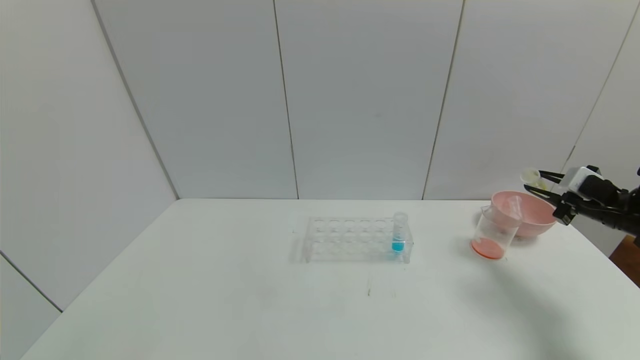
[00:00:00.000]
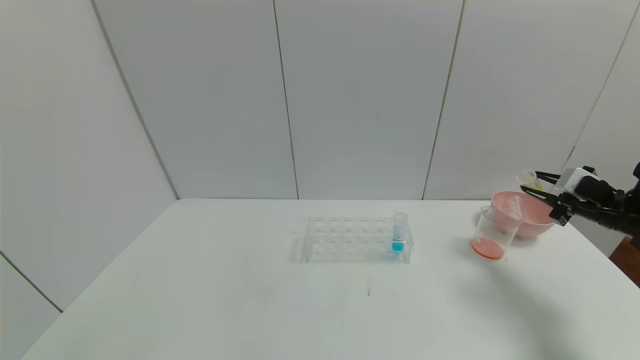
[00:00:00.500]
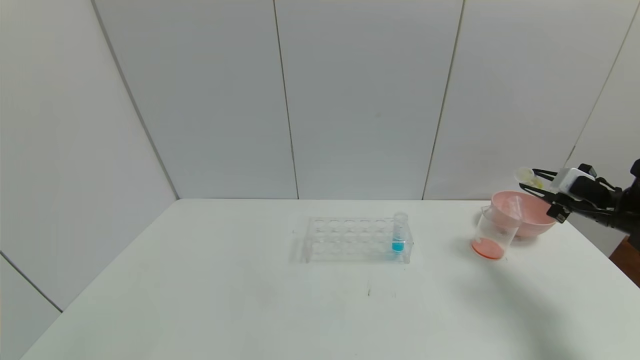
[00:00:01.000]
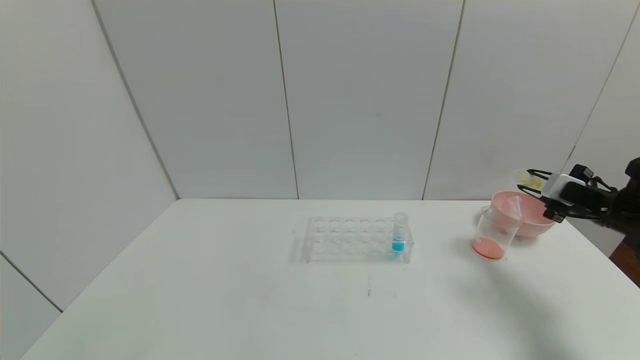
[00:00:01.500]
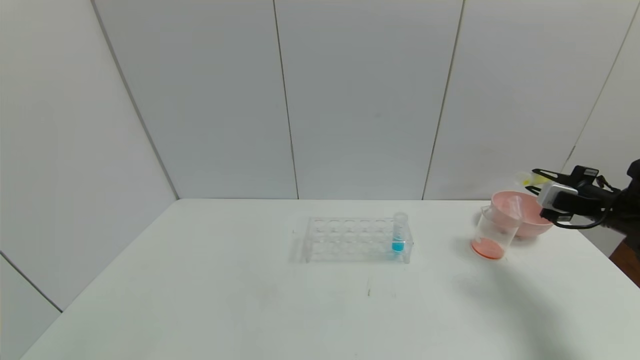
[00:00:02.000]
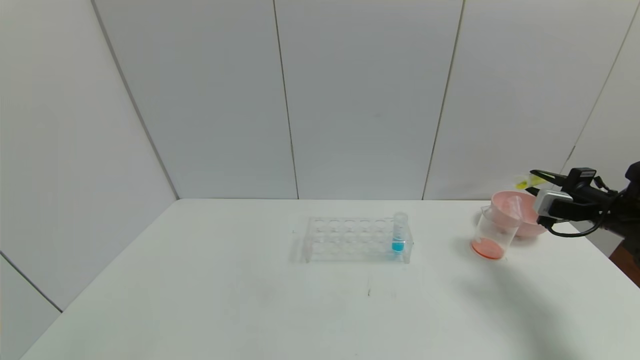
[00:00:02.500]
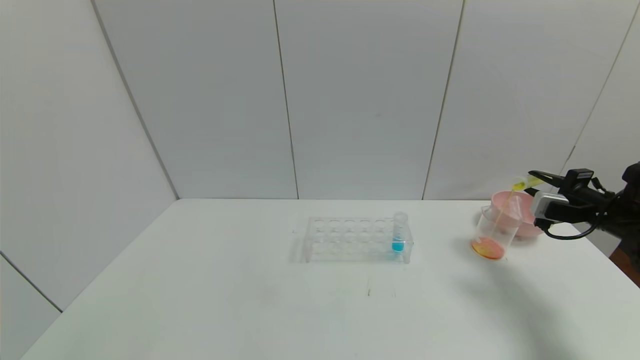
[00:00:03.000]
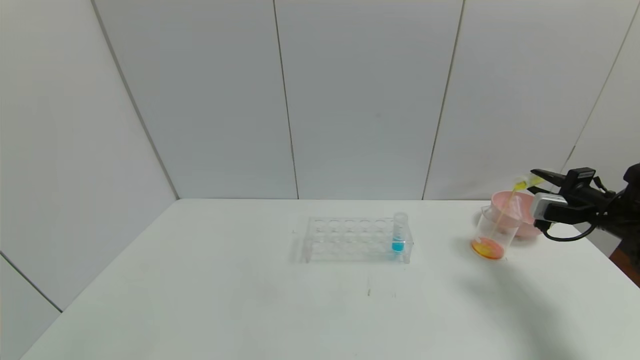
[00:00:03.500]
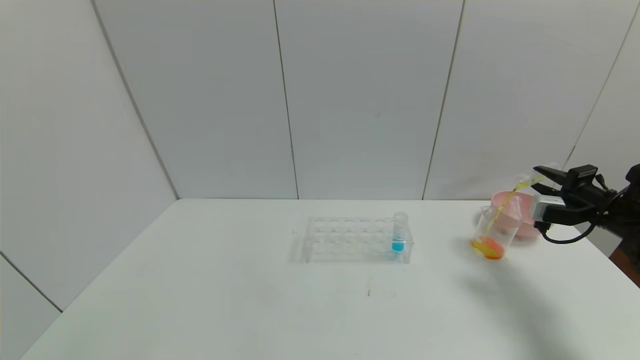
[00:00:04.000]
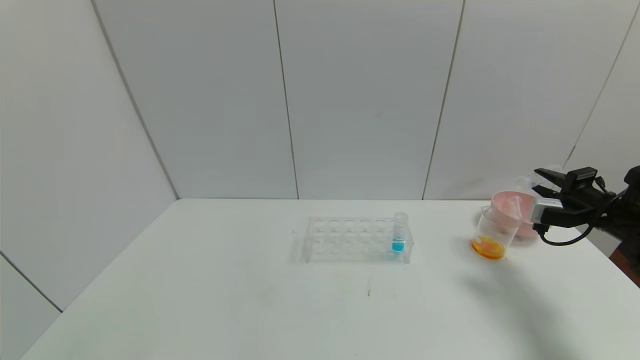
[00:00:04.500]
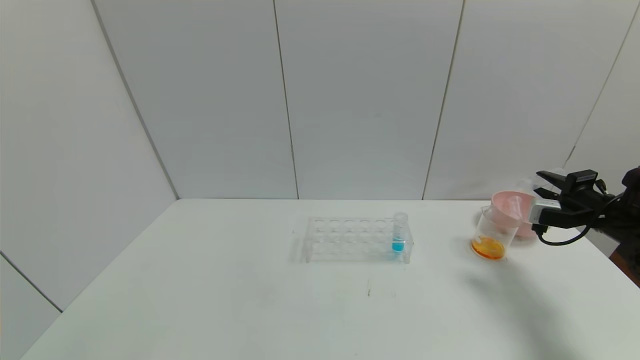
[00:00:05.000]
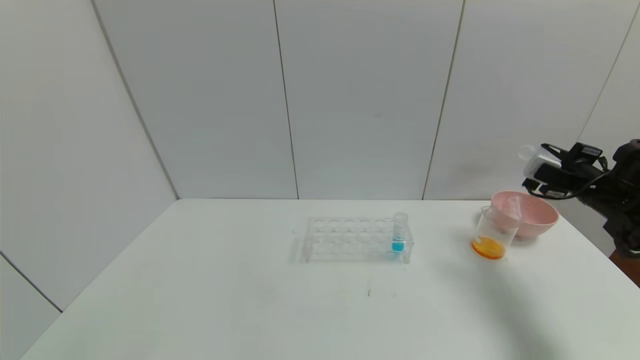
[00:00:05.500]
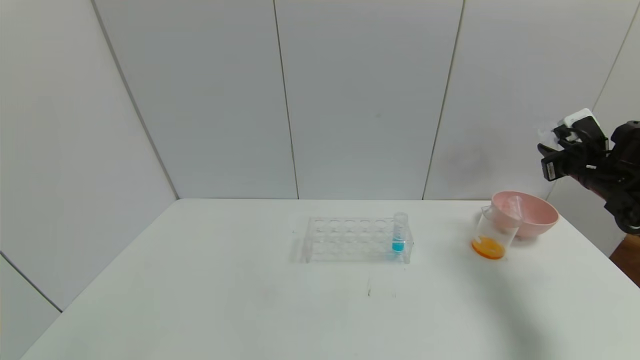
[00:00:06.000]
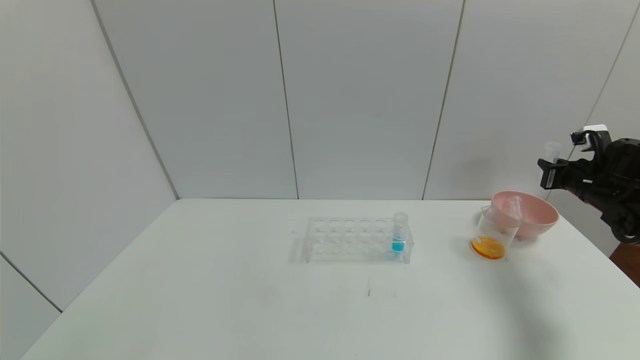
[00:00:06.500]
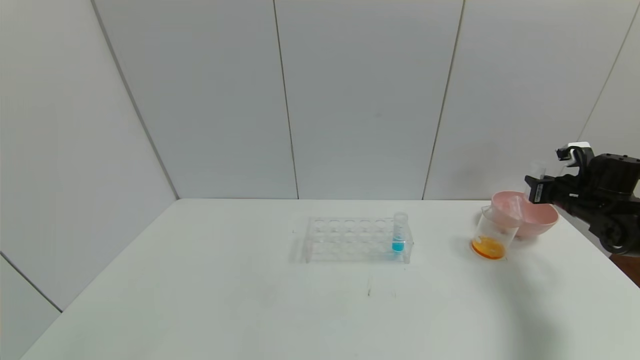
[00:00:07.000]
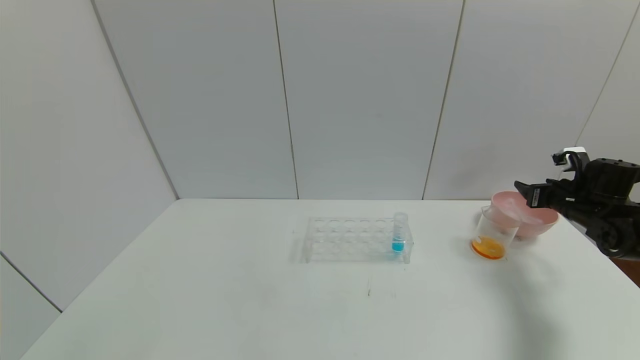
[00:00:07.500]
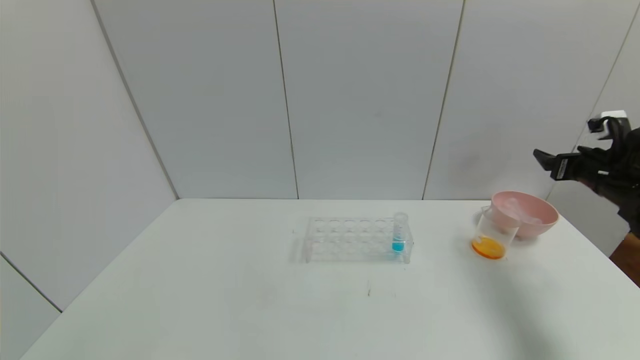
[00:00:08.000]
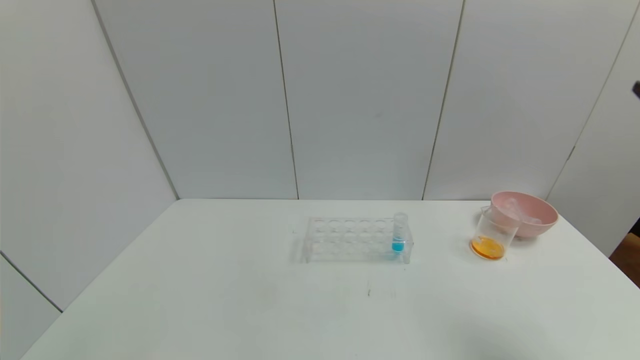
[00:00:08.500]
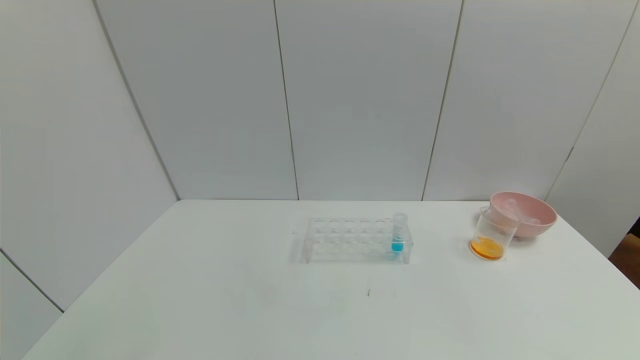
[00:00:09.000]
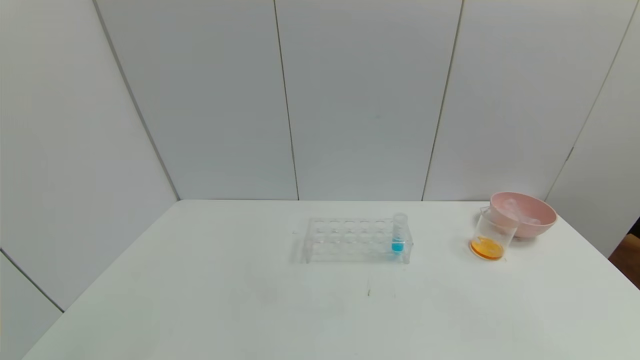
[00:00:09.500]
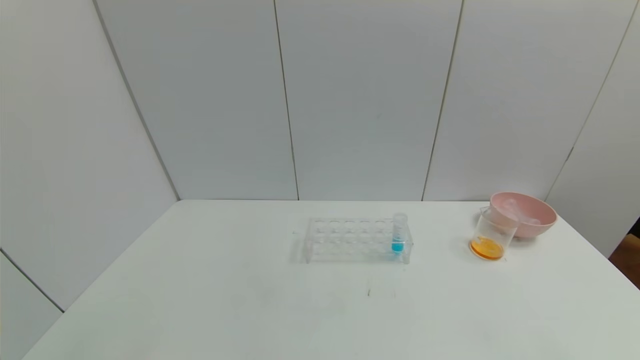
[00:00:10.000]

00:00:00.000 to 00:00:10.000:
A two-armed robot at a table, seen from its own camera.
Task of the whole recording: pick up the test tube with yellow pigment and the test tube with red pigment by grippers and pour them into the beaker.
Step, 00:00:00.000 to 00:00:04.500: Pour the yellow reagent into the graduated cylinder with the right gripper.
Step, 00:00:05.000 to 00:00:07.000: Place the test tube into the bowl with the right gripper.
00:00:02.000 to 00:00:04.000: The grippers move only a little.
00:00:04.000 to 00:00:06.000: The right gripper changes place by some 5 cm.
00:00:06.000 to 00:00:08.000: The right gripper moves about 5 cm downward and comes back, and opens.
00:00:08.000 to 00:00:10.000: The right gripper heads backward, covering some 40 cm.

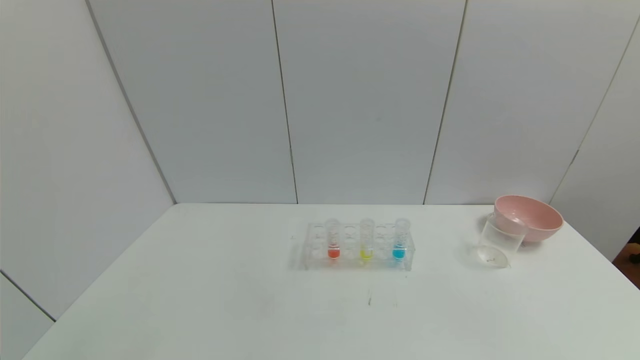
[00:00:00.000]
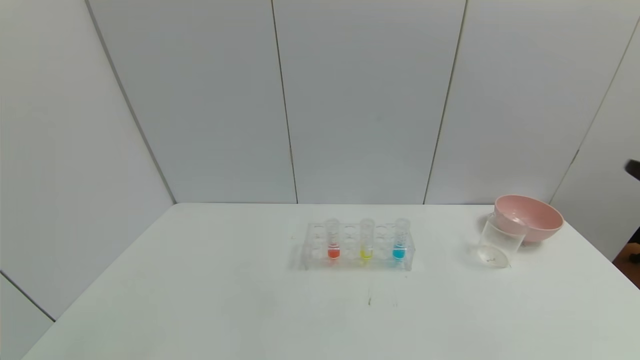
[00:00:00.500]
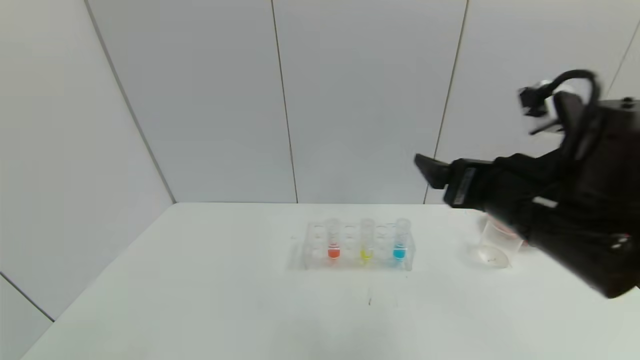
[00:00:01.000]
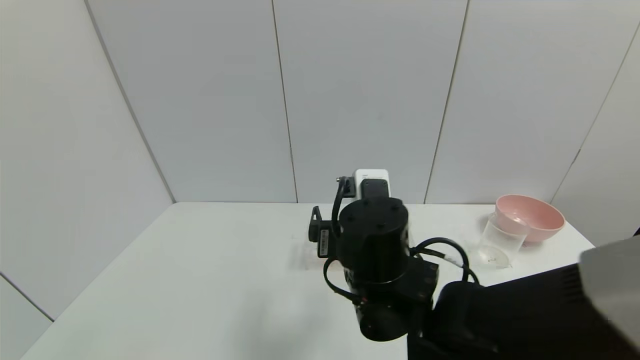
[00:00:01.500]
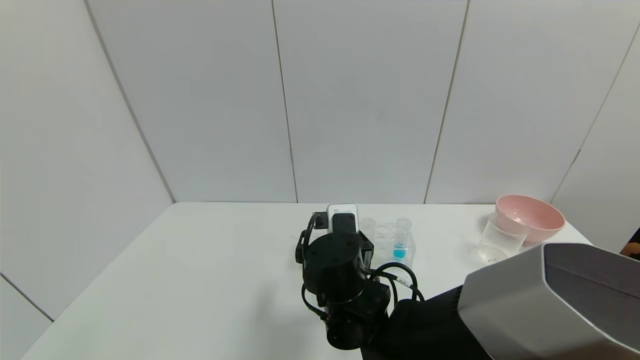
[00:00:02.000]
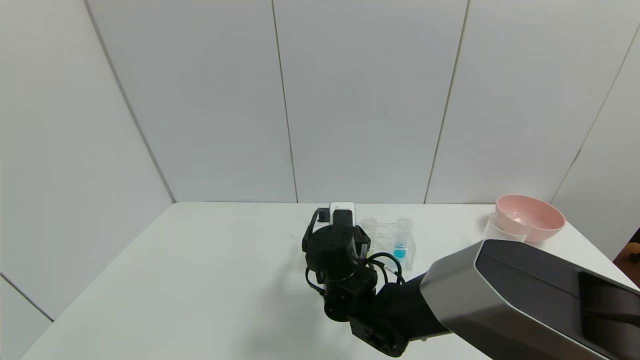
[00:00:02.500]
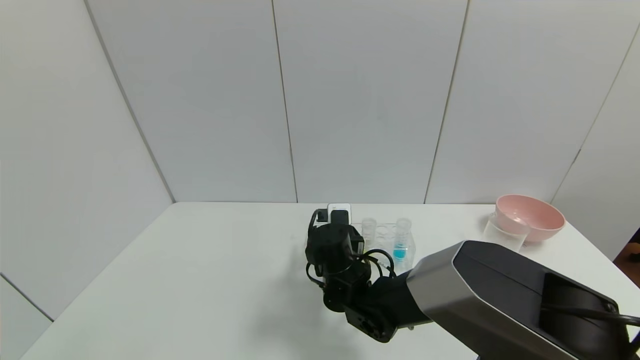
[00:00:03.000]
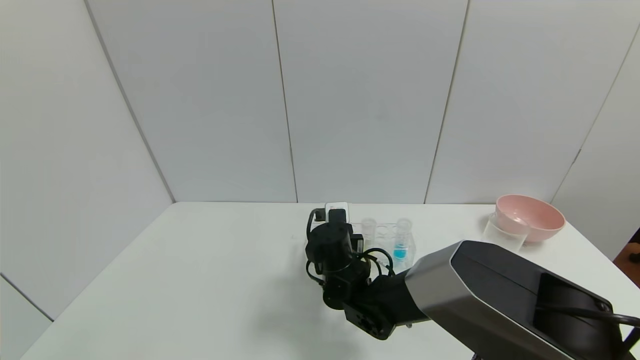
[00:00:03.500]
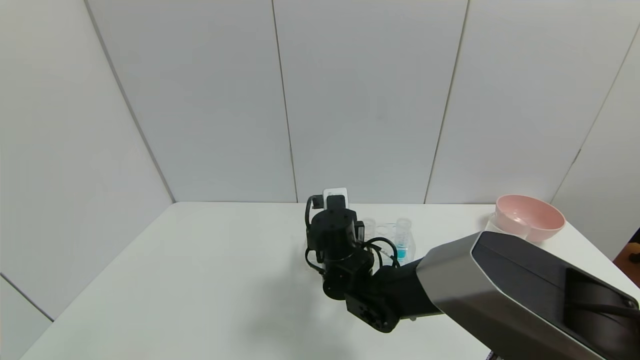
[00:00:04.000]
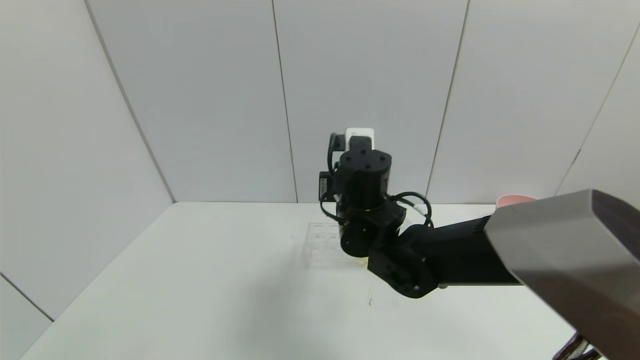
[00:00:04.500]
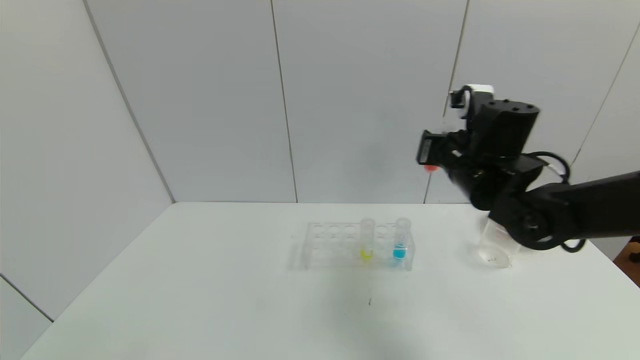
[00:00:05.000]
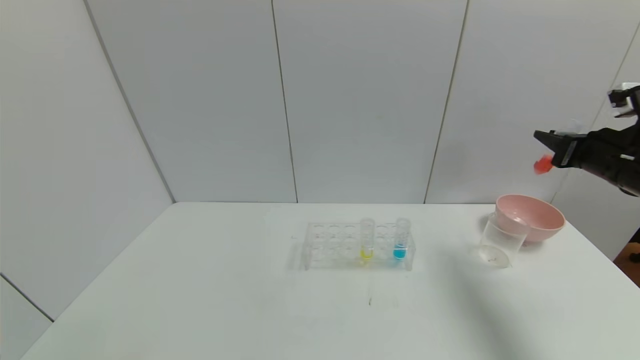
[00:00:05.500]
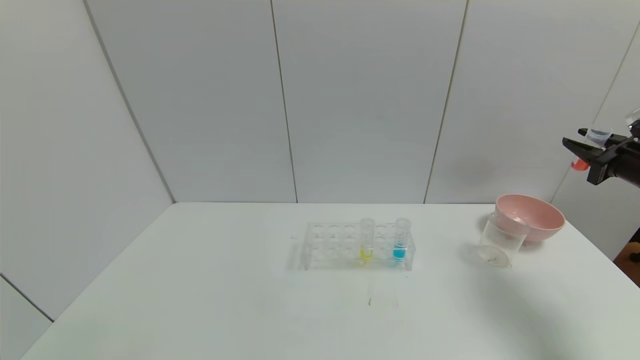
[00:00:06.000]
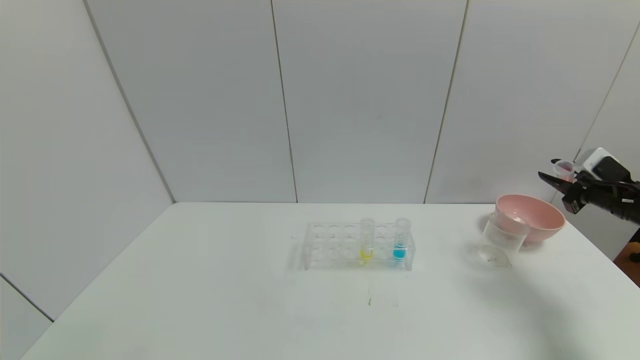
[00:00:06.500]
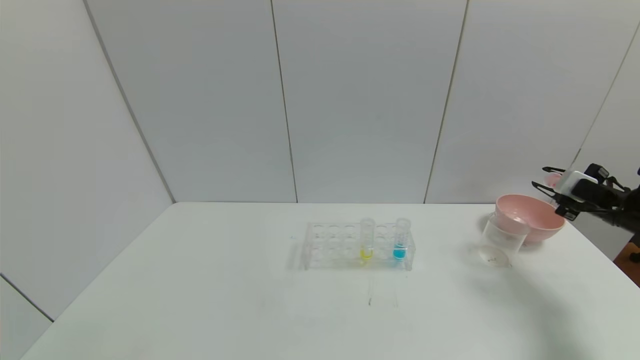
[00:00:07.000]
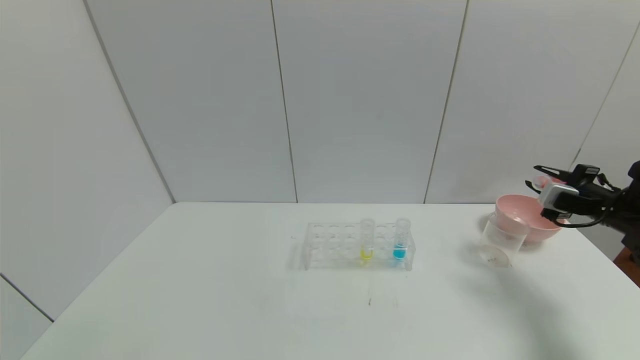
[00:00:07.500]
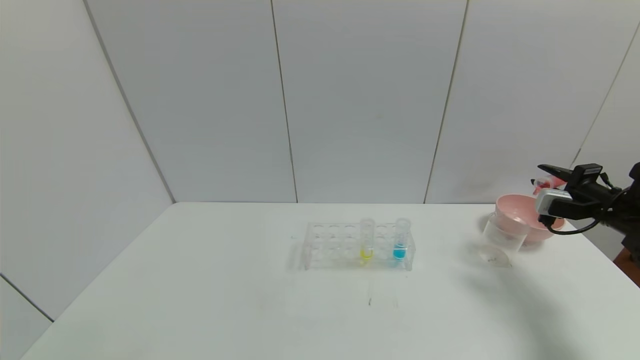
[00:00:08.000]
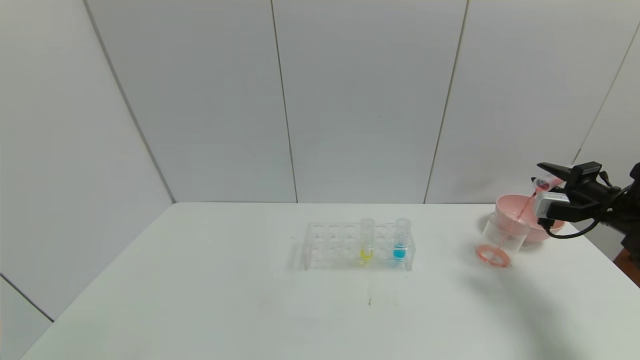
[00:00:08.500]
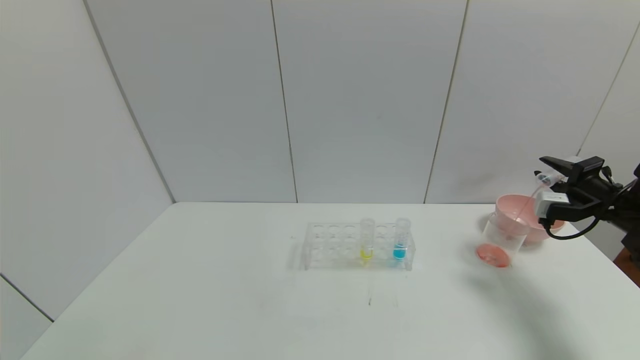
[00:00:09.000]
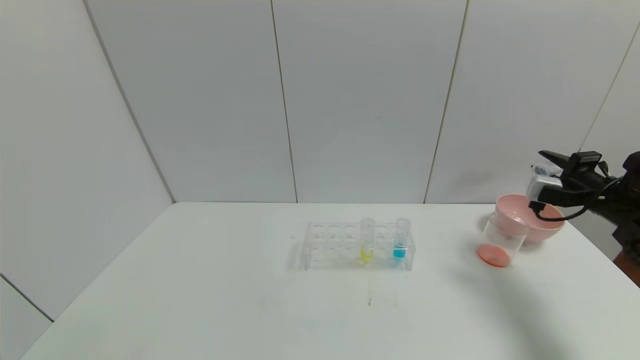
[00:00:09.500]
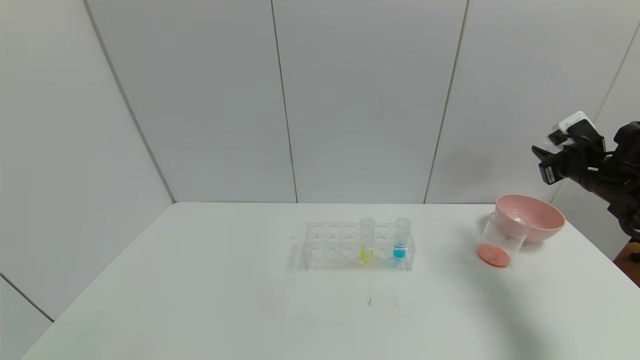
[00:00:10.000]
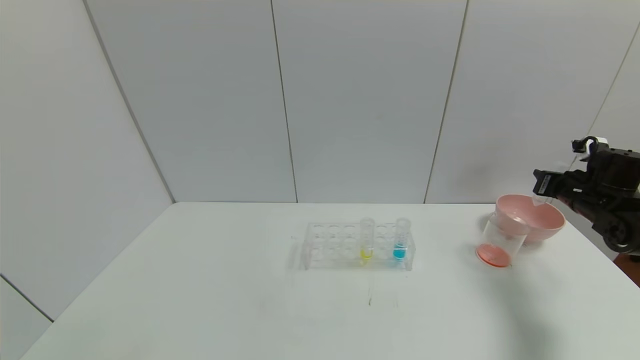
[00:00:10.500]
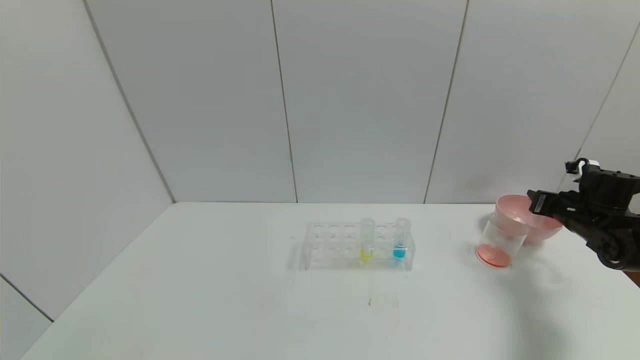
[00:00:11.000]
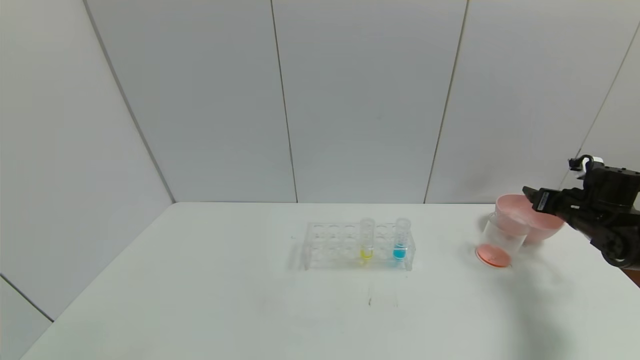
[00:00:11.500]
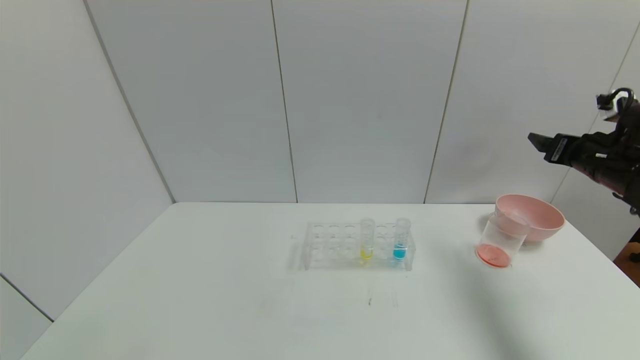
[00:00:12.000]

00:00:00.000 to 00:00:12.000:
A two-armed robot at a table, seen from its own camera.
Task of the whole recording: pick up the test tube with yellow pigment and the test tube with red pigment by grippers and pour them into the beaker.
Step, 00:00:00.000 to 00:00:03.000: Grasp the red reagent with the right gripper.
Step, 00:00:03.500 to 00:00:09.000: Pour the red reagent into the graduated cylinder with the right gripper.
Step, 00:00:09.500 to 00:00:11.000: Place the test tube into the bowl with the right gripper.
00:00:00.000 to 00:00:02.000: The right gripper shifts roughly 50 cm to the left and forward.
00:00:02.000 to 00:00:04.000: The right gripper heads forward, covering approximately 10 cm, and closes its fingers.
00:00:04.000 to 00:00:06.000: The right gripper moves to the right, about 50 cm.
00:00:06.000 to 00:00:08.000: The right gripper heads downward, covering approximately 5 cm.
00:00:08.000 to 00:00:10.000: The right gripper ends up about 5 cm from where it was.
00:00:10.000 to 00:00:12.000: The right gripper reaches about 10 cm downward, then returns, and opens up.
